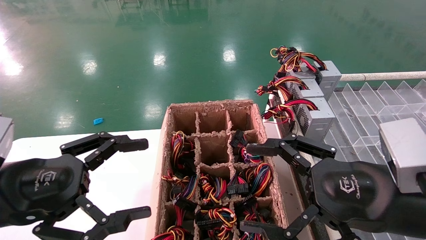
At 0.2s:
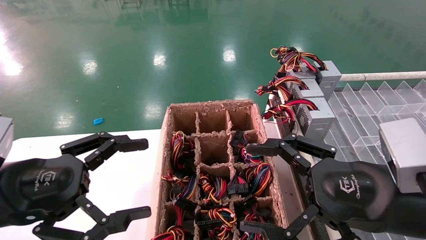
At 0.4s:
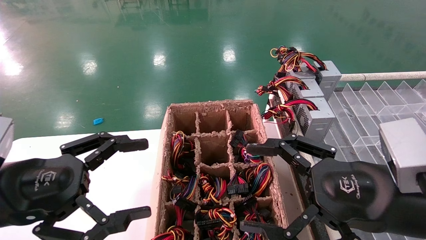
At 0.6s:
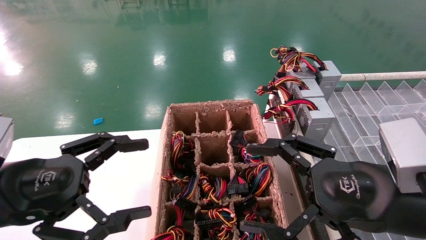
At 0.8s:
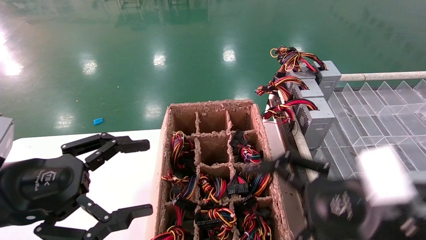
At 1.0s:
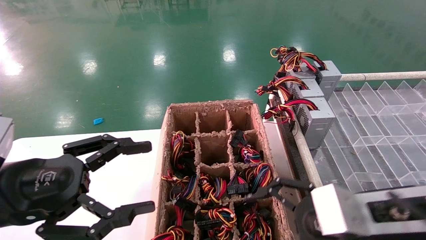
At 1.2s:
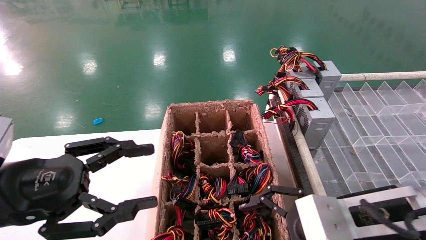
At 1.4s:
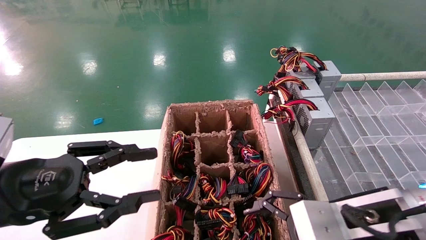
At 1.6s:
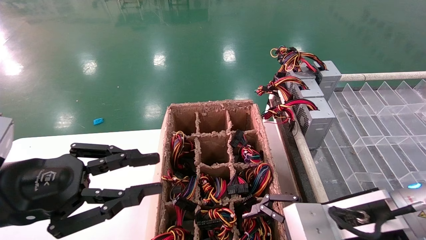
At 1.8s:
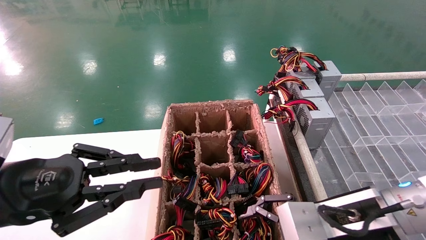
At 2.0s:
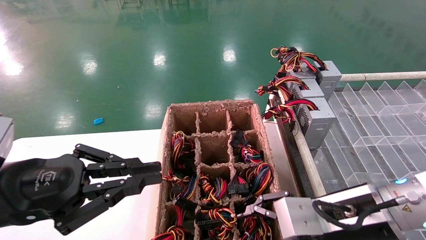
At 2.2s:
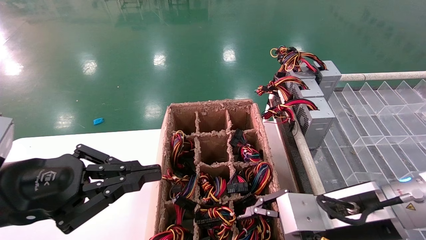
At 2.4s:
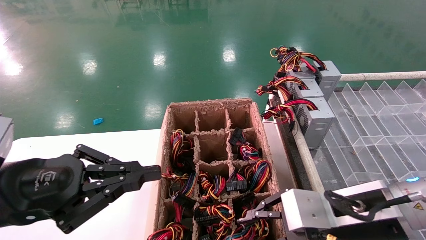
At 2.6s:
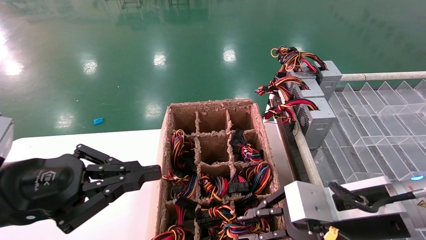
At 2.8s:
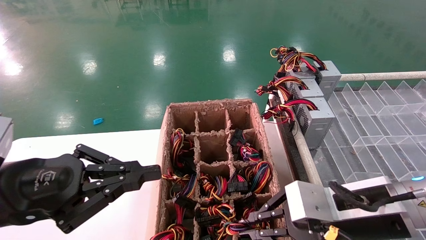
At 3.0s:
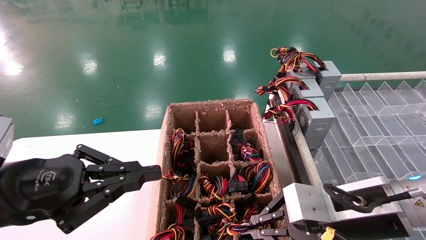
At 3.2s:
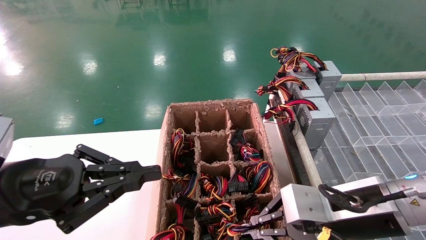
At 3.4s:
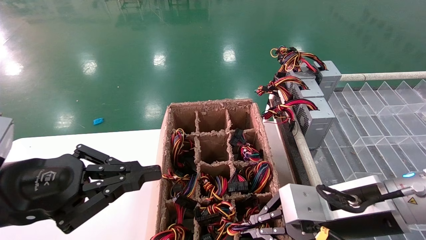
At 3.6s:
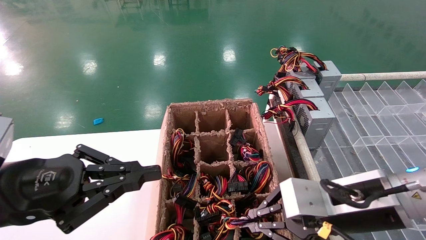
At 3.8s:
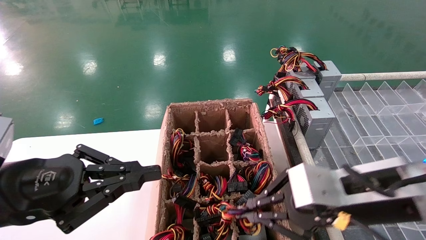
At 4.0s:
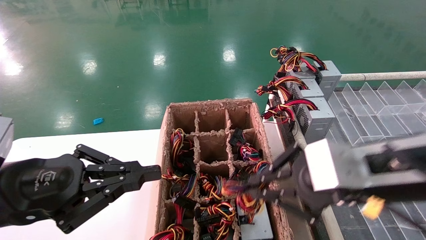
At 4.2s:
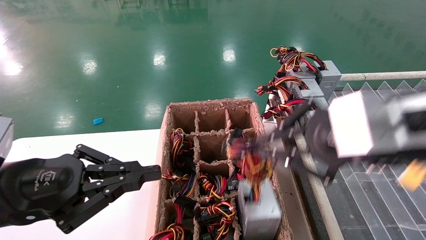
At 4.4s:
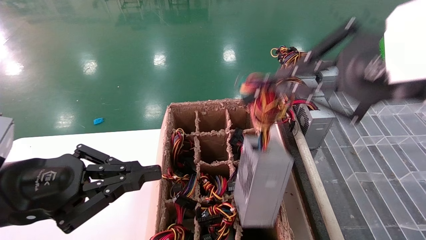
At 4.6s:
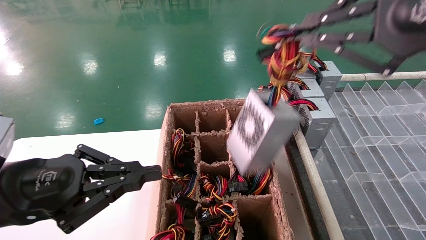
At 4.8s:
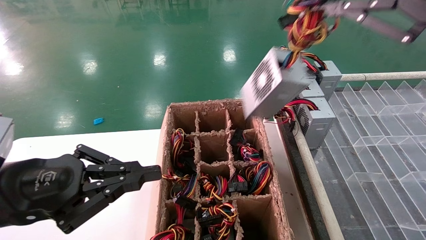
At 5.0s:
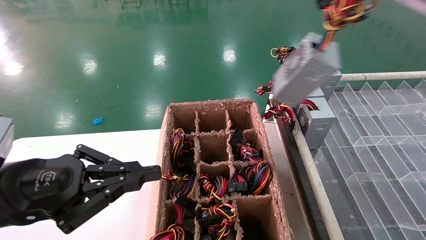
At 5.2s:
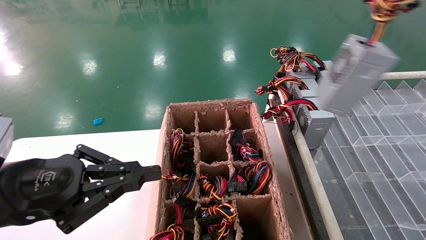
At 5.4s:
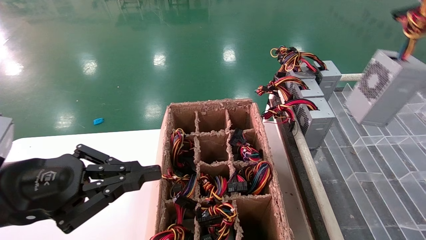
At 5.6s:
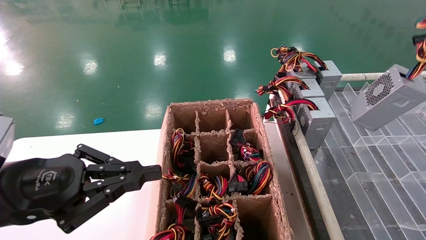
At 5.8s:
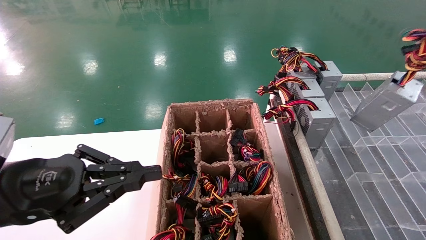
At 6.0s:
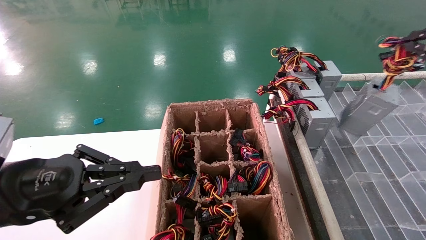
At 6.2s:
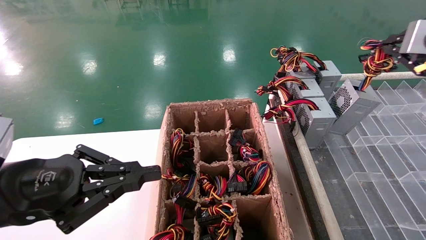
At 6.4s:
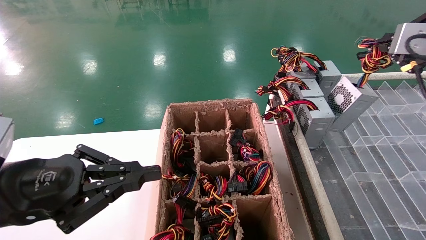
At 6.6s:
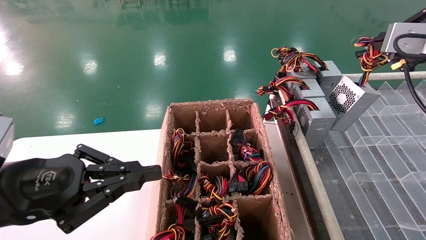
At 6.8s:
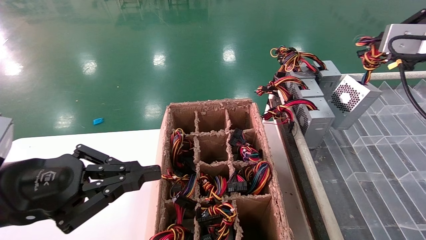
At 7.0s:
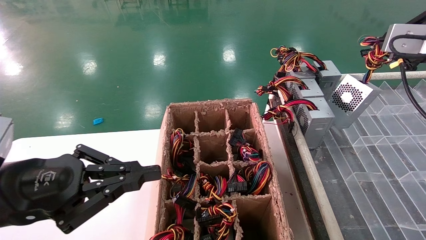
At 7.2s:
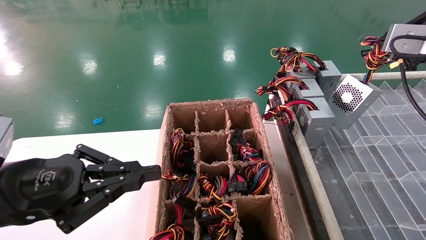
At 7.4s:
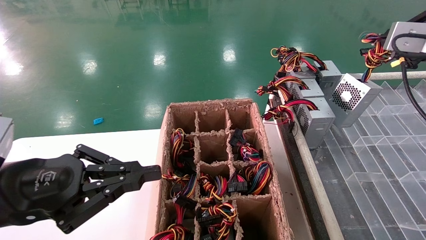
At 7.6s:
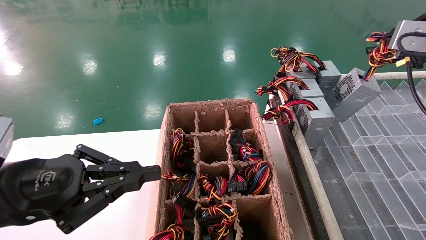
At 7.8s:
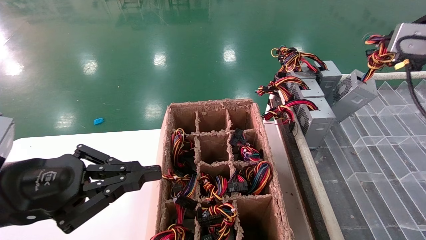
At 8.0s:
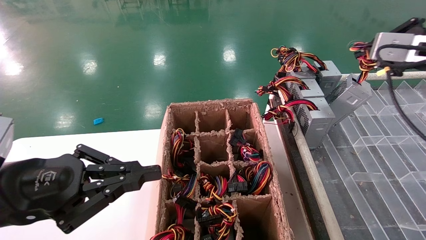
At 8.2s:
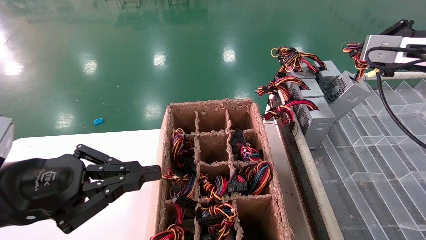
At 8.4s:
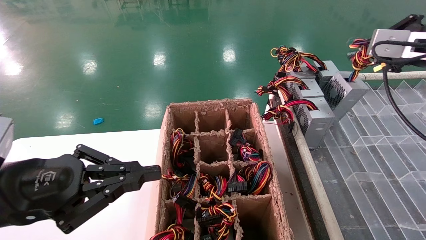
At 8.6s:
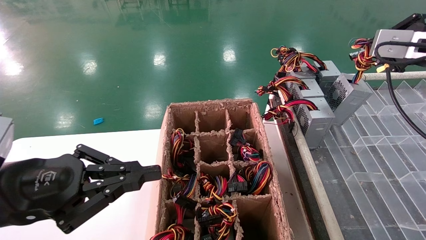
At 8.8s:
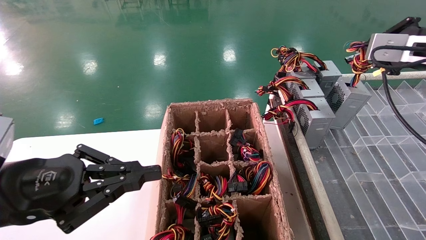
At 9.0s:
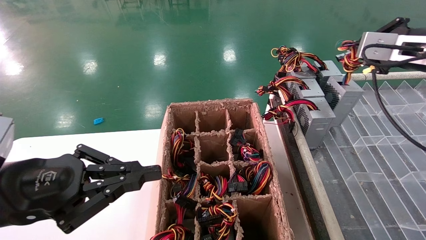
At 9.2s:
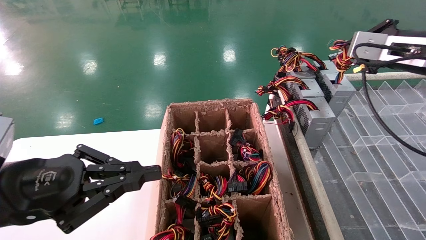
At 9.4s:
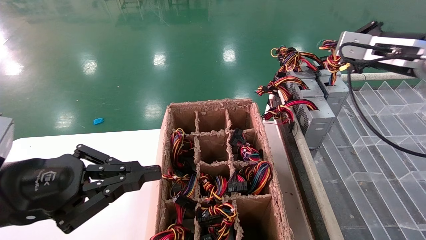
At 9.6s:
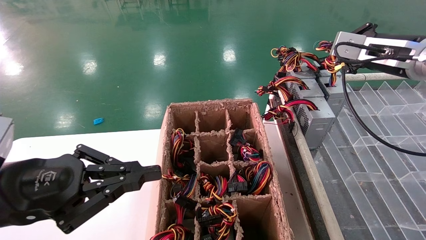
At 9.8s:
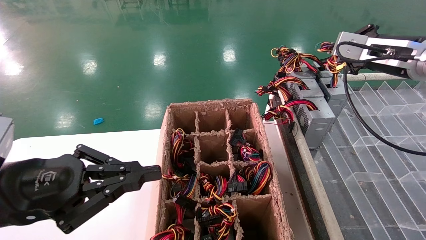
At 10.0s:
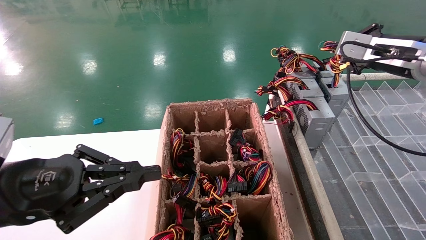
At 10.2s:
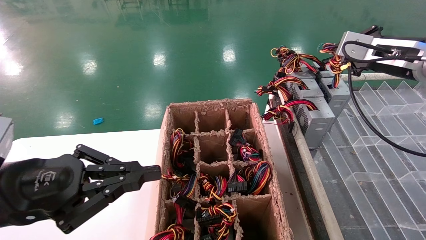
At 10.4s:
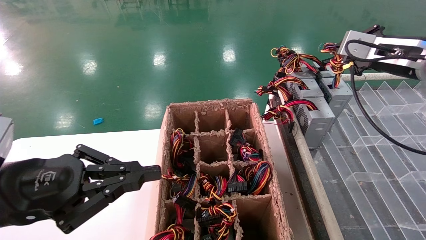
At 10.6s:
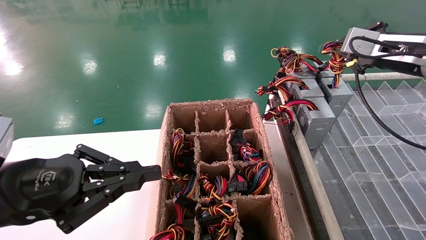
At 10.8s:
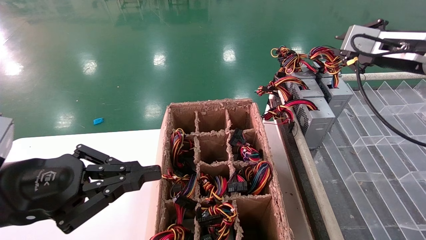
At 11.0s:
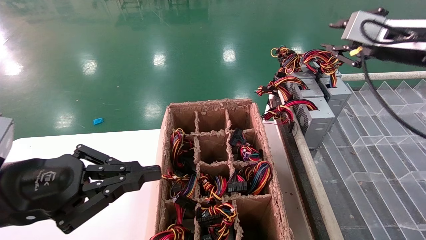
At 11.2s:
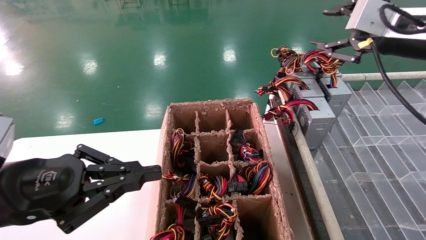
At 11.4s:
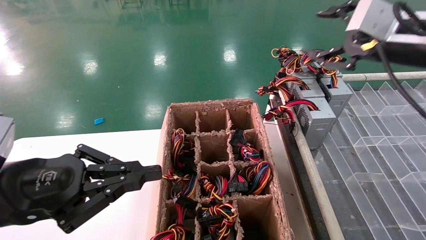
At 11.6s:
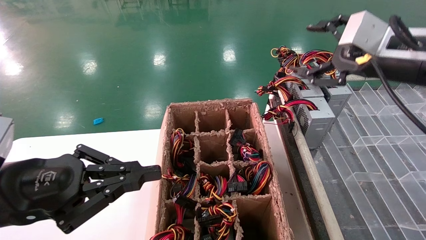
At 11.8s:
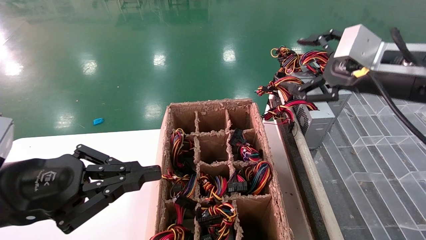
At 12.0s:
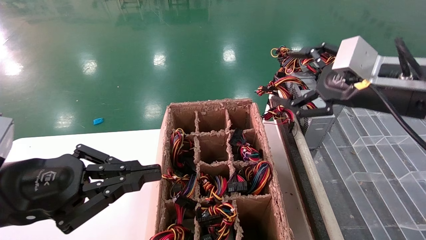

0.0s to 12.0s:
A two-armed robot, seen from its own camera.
Step, 1.2s to 3.0s: Grab the main unit power supply from the containment box.
Step, 3.2s to 11.0s: Place the main unit power supply in the designated area.
0.0s to 1.6s: The left gripper closes up; the right gripper moves roughly 5 cm.
1.6s to 3.0s: The left gripper closes its fingers, while the right gripper closes its fingers.
3.0s to 4.4s: The right gripper shifts roughly 20 cm upward.
4.4s to 6.0s: The right gripper is displaced to the right and forward by some 15 cm.
6.0s to 7.6s: The right gripper shifts approximately 5 cm forward.
7.6s to 9.0s: There are only small adjustments of the grippers.
9.0s to 10.4s: There are only small adjustments of the grippers.
10.4s to 12.0s: The right gripper shifts approximately 10 cm backward and to the left, and opens its fingers.

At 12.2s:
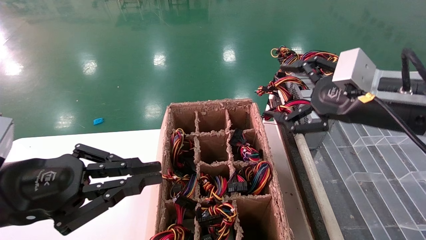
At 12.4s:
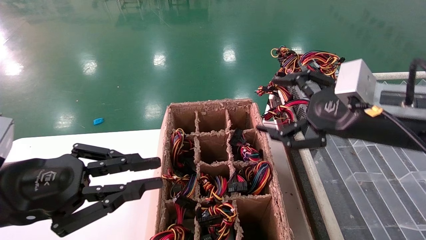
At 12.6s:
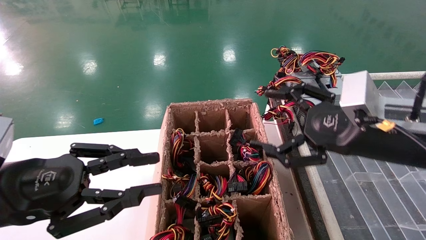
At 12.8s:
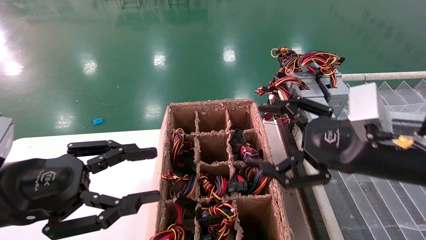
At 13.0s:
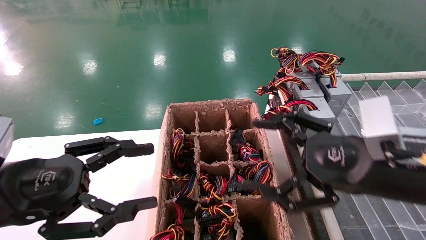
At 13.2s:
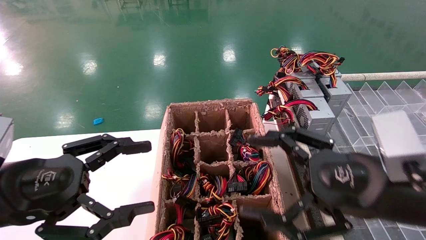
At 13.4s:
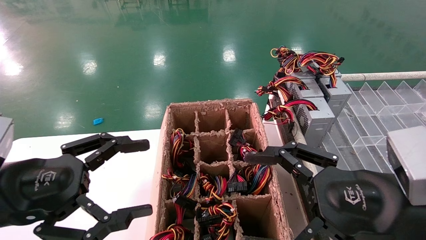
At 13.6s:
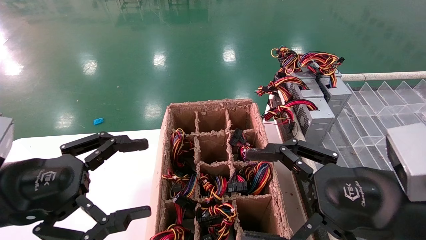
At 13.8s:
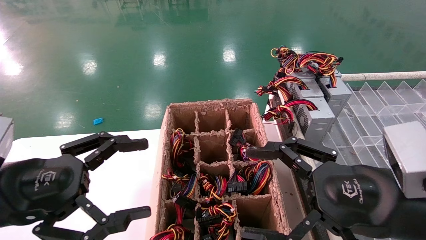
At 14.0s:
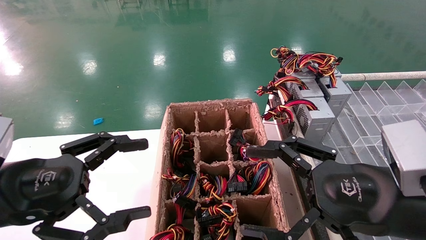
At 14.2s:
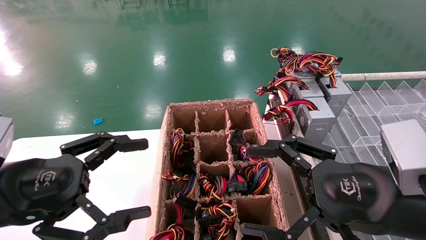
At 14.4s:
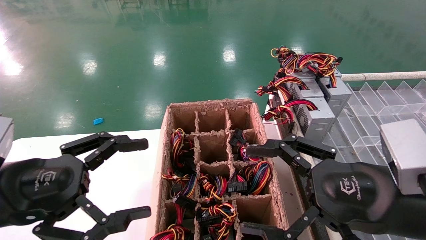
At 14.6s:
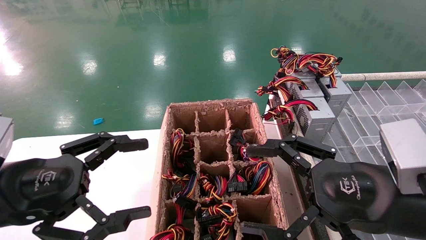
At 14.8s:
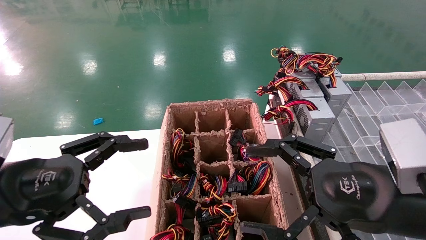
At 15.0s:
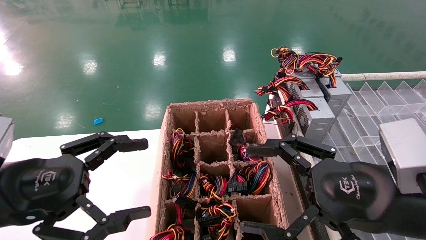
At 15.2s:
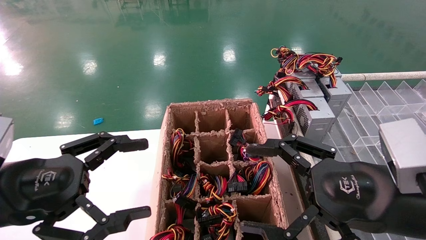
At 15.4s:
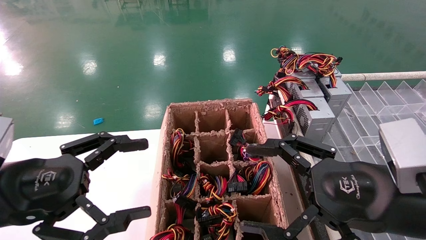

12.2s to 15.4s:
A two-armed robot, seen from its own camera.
12.2s to 13.8s: The right gripper heads backward and downward, covering about 15 cm; the left gripper opens its fingers.
13.8s to 15.4s: Both grippers stay about where they are.

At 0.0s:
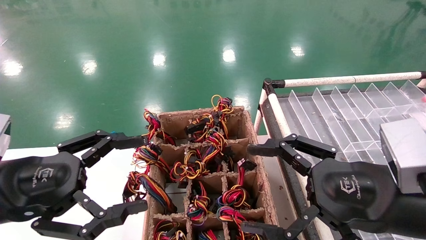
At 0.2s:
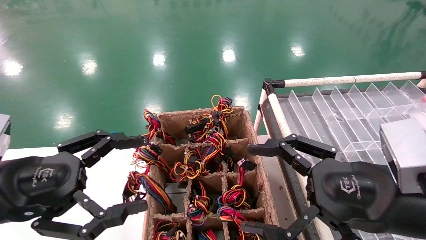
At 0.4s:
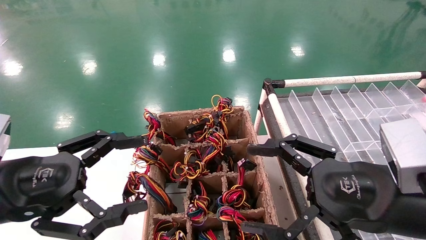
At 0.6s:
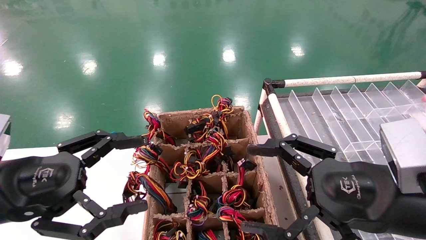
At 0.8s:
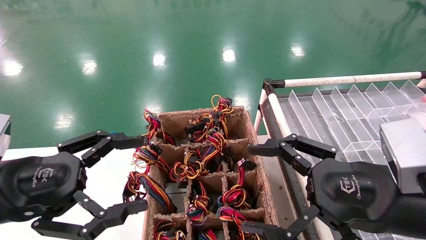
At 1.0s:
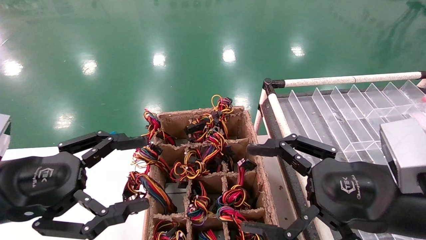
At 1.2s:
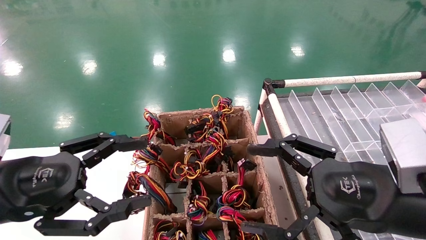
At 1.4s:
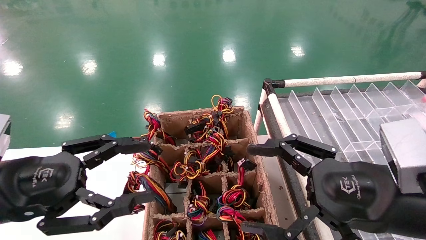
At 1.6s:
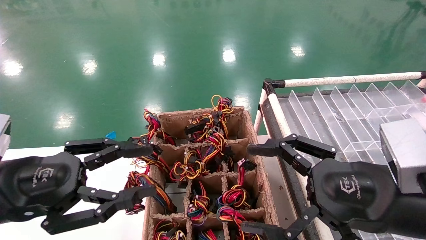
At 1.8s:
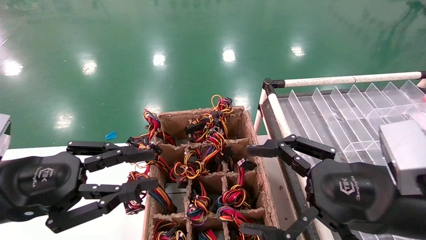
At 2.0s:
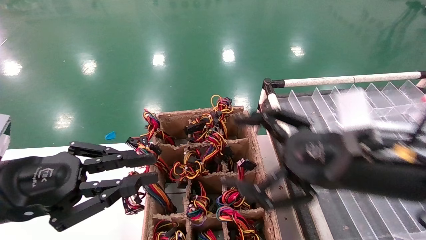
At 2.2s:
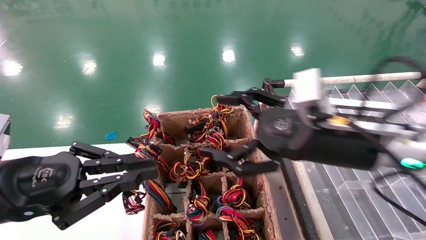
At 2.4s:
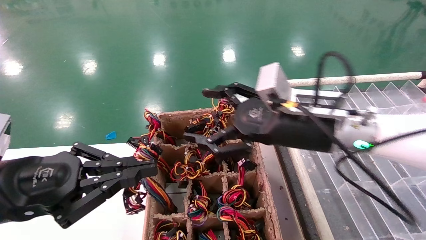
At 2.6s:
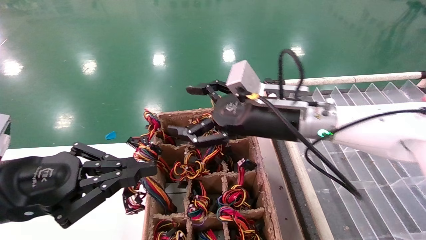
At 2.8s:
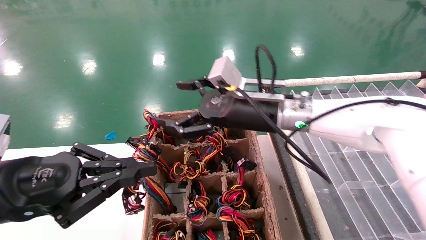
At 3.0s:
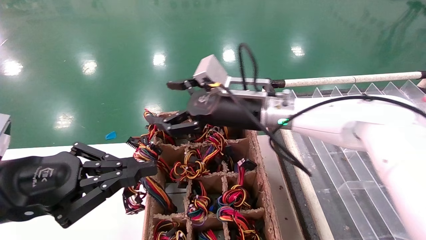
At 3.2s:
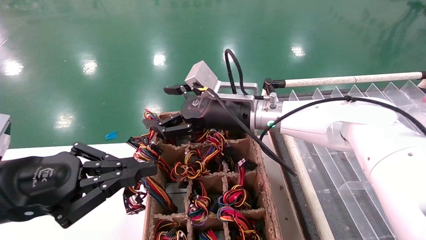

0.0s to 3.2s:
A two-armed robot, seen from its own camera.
0.0s to 1.6s: Both grippers stay about where they are.
1.6s to 3.2s: The right gripper heads forward and to the left, covering some 30 cm, while the left gripper closes up.
